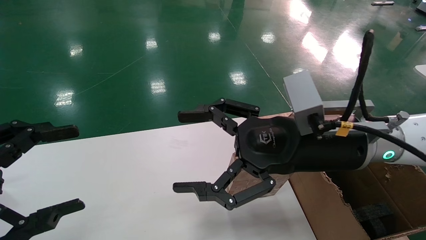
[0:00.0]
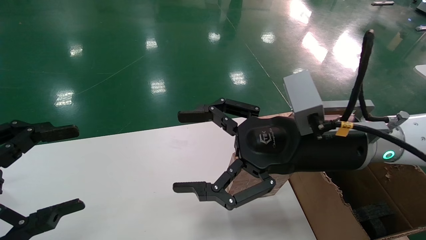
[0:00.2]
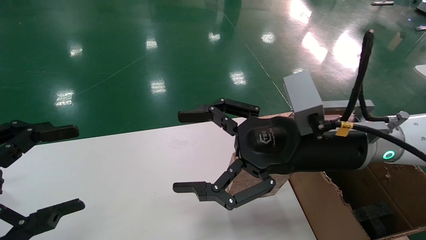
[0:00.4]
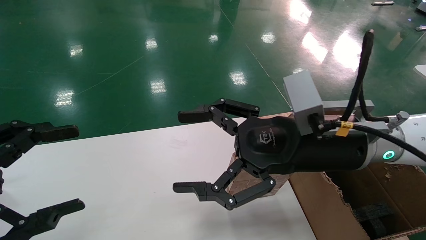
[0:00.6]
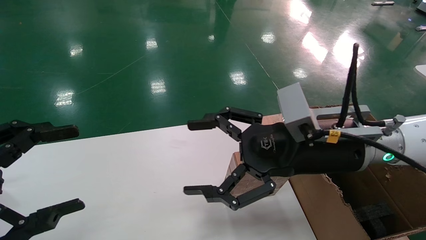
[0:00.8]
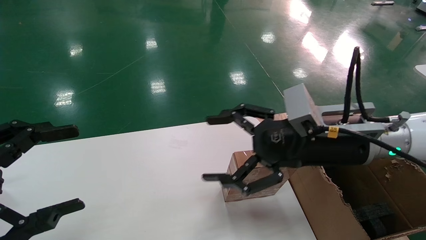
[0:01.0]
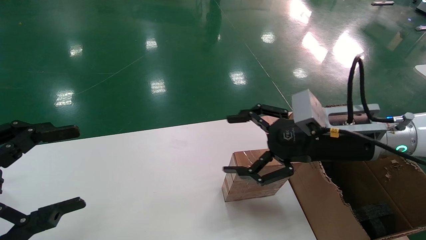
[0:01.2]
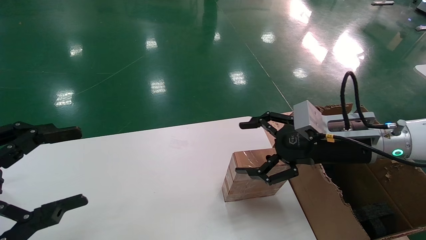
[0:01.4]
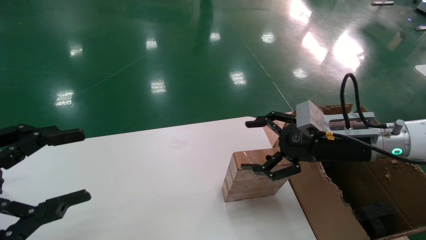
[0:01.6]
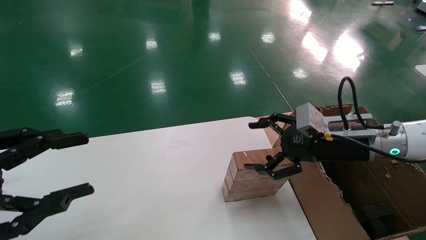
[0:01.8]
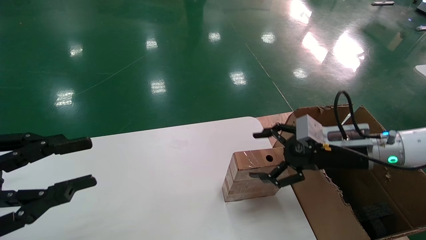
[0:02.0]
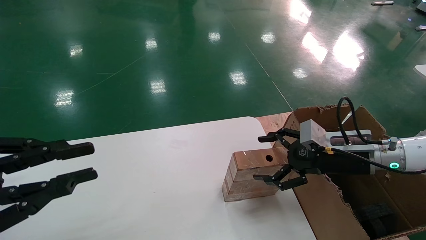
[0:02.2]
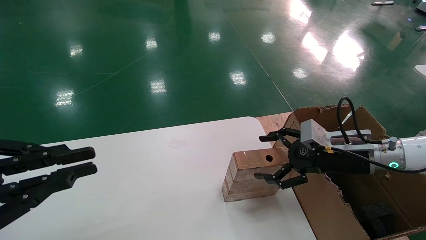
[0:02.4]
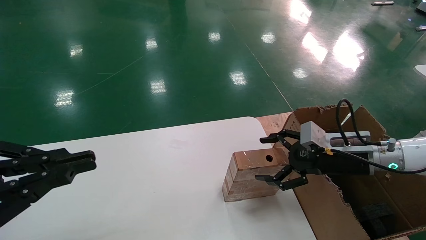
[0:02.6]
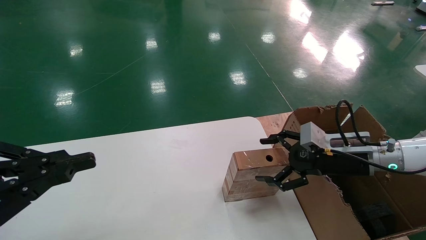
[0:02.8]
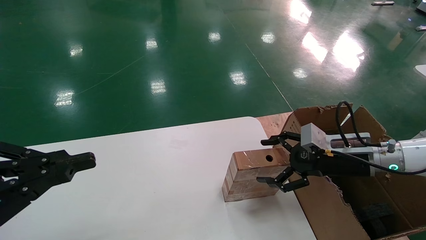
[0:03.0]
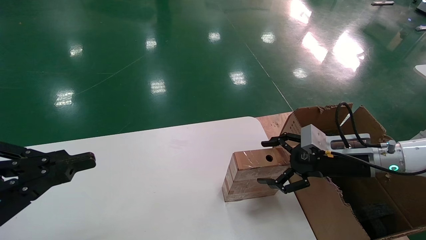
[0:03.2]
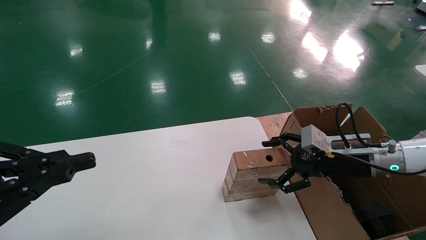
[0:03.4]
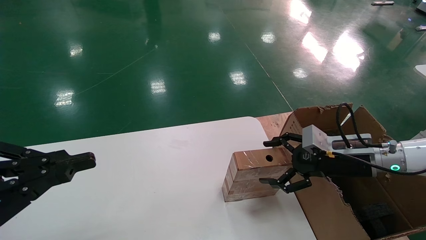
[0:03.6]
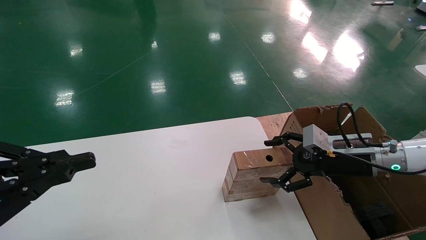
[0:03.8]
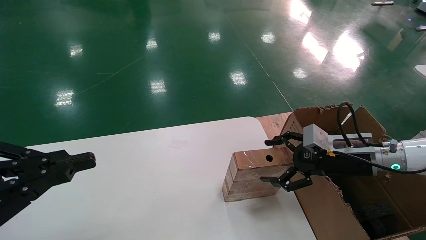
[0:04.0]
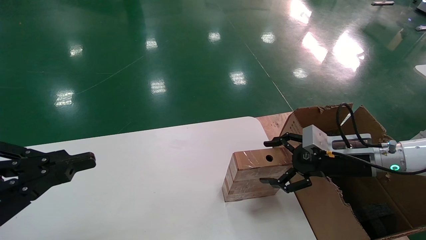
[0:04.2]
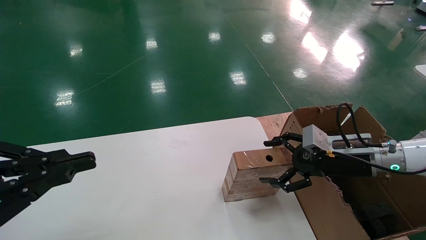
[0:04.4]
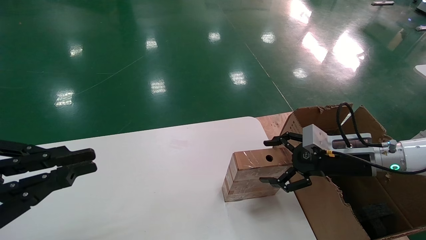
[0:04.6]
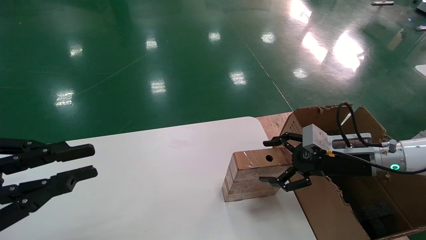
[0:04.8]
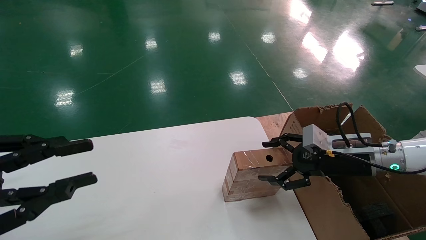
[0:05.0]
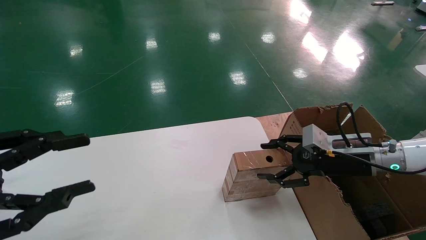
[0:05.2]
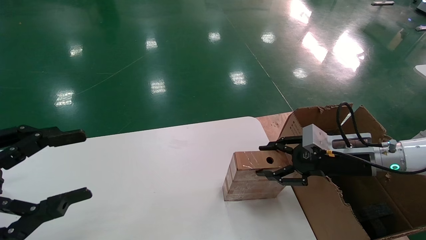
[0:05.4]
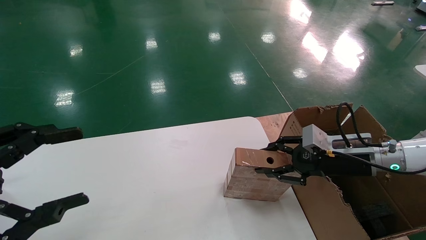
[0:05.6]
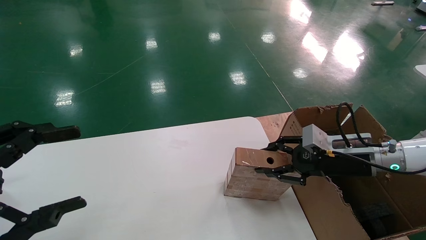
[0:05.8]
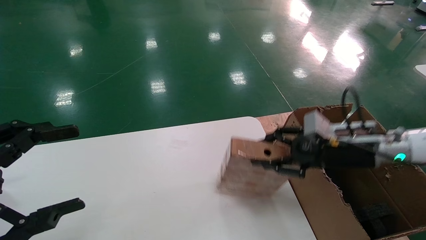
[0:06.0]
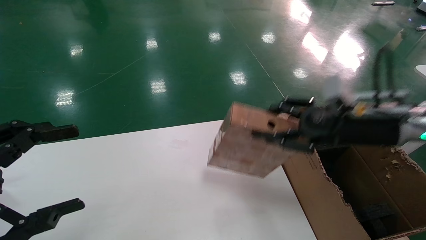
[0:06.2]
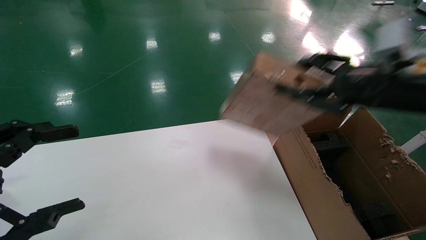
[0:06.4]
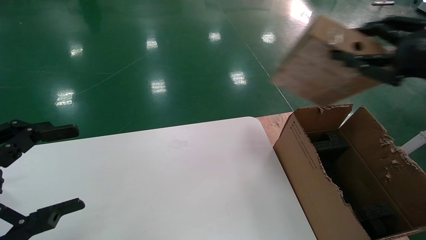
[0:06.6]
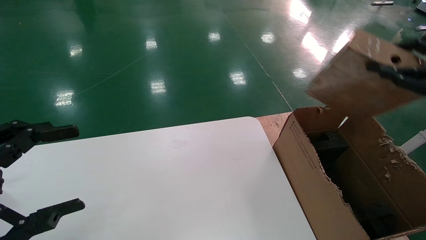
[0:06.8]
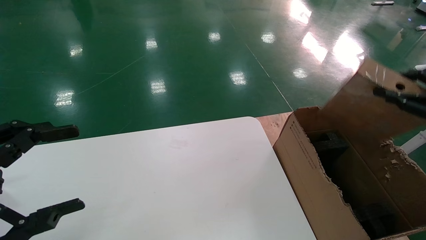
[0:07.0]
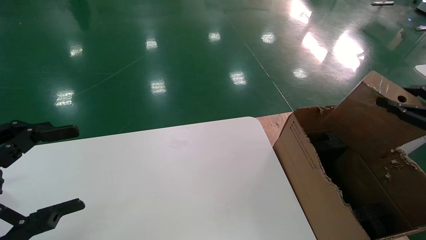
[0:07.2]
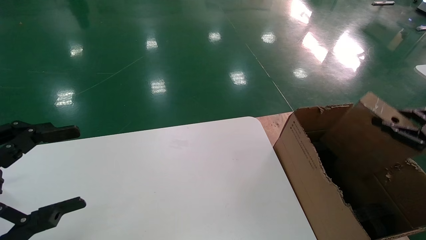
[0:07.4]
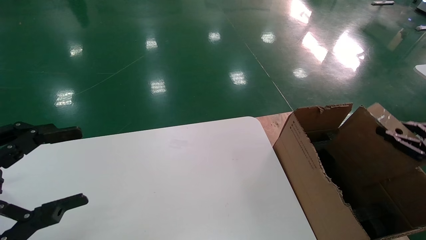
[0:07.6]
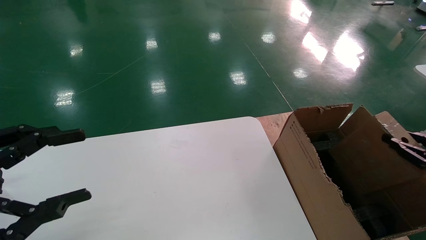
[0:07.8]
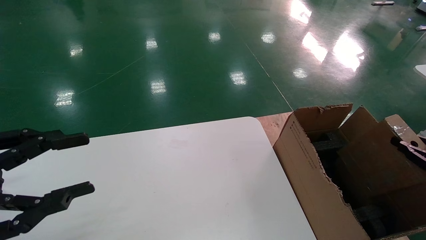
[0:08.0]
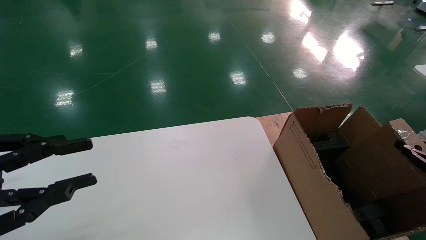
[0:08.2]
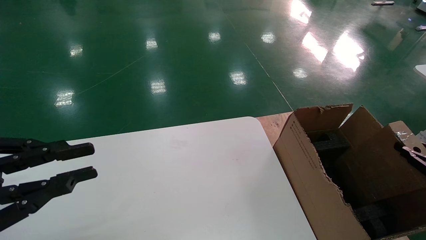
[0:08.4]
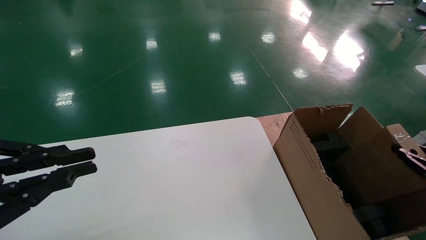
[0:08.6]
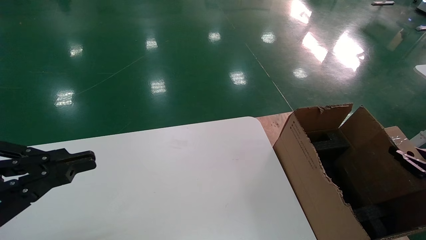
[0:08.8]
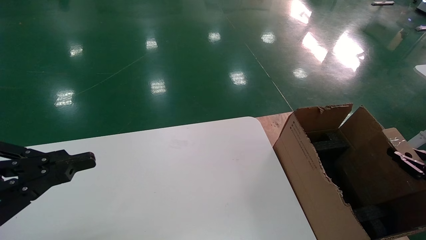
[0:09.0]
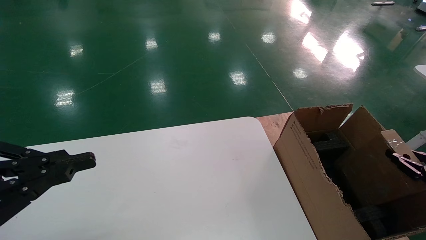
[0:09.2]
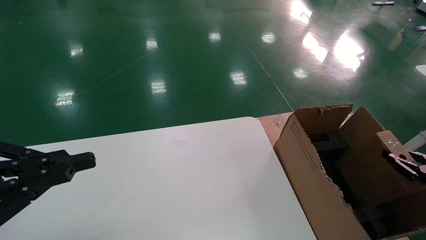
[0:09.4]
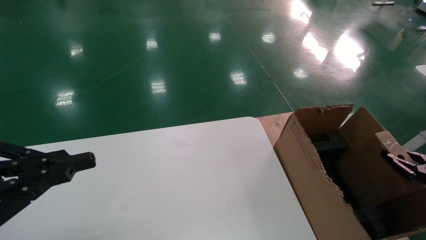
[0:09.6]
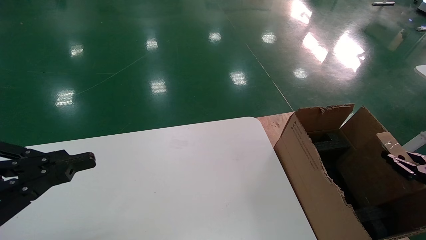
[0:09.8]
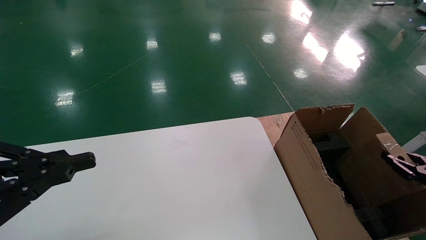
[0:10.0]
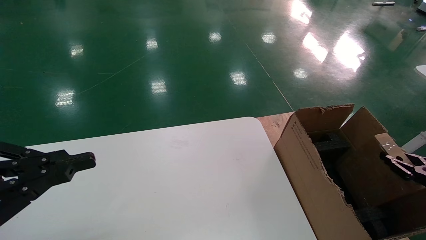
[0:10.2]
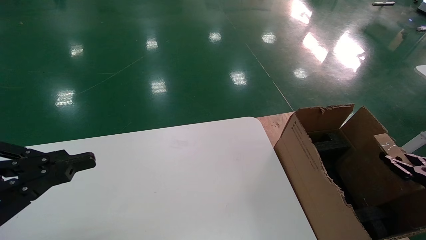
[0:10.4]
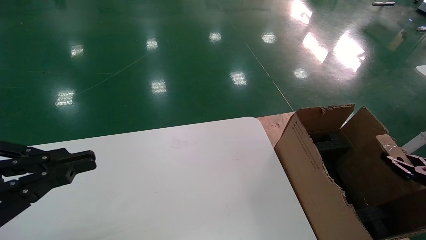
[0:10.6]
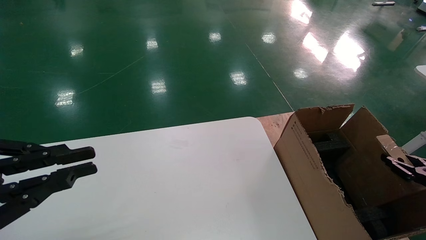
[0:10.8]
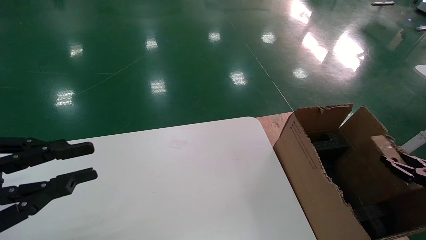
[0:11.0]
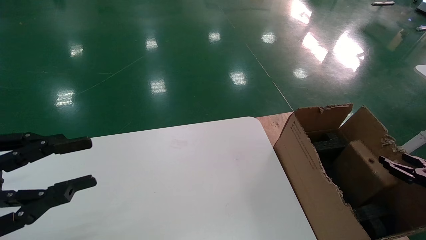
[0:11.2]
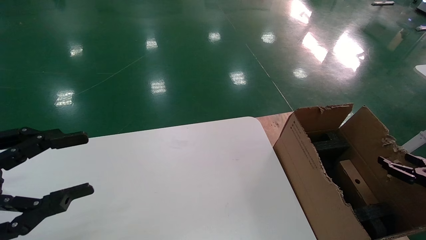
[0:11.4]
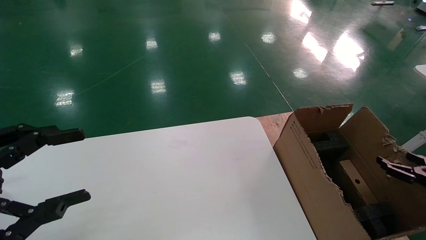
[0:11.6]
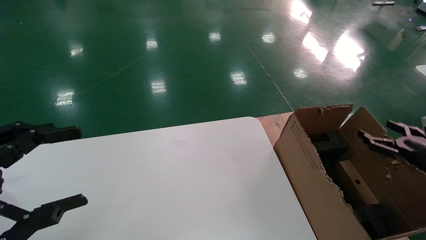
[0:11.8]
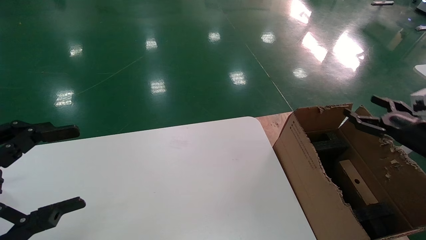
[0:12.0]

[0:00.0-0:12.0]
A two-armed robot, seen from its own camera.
Task of the whole recording: put the box on the table into the big box.
Step, 0:01.2 to 0:05.6: Pick up the mouse and the power cord paper box.
Step, 0:05.8 to 0:11.2: Place the mouse and the power cord paper box into the container.
0:00.0 to 0:01.6: The right gripper heads to the right and forward, covering some 10 cm.
0:01.6 to 0:03.0: The left gripper closes its fingers. Meanwhile the right gripper moves downward, some 5 cm.
0:03.0 to 0:04.4: Both grippers stay put.
0:04.4 to 0:06.0: The right gripper heads upward, covering some 5 cm, and closes. Meanwhile the left gripper opens.
0:06.0 to 0:07.6: The right gripper heads to the right and backward, covering approximately 25 cm.
0:07.6 to 0:09.0: The left gripper closes its fingers. The right gripper heads downward, covering about 10 cm.
0:09.0 to 0:10.4: The grippers stay close to where they were, moving slightly.
0:10.4 to 0:12.0: The right gripper goes about 15 cm upward, forward and to the left, and opens; the left gripper opens up.

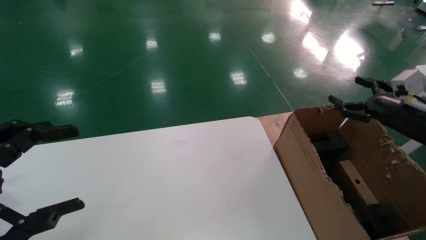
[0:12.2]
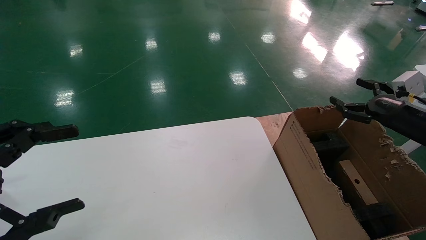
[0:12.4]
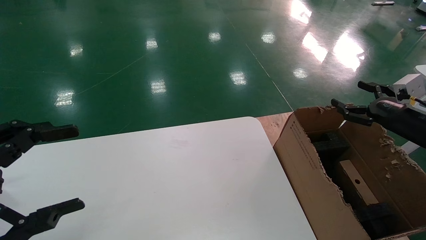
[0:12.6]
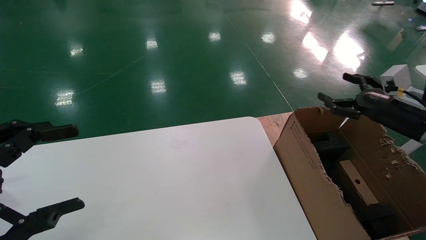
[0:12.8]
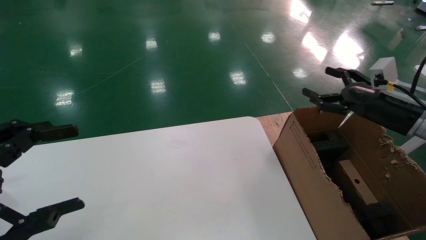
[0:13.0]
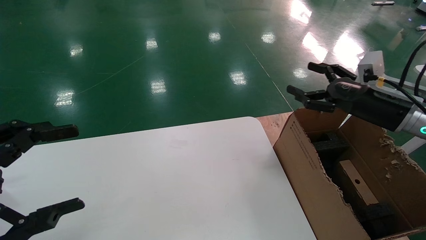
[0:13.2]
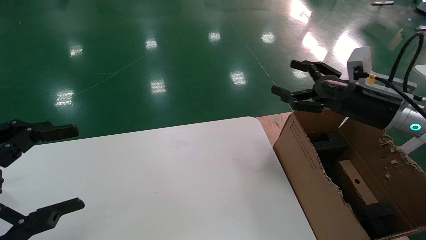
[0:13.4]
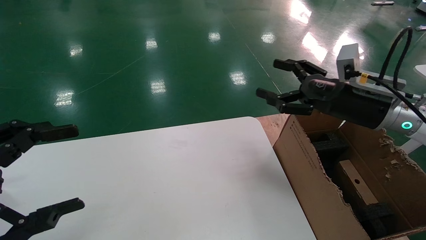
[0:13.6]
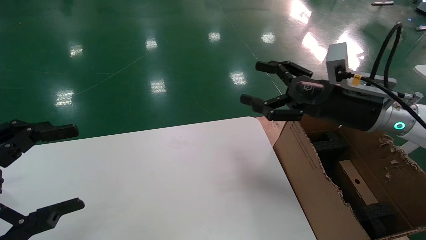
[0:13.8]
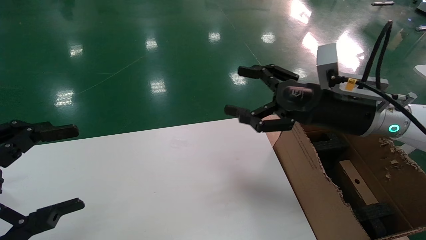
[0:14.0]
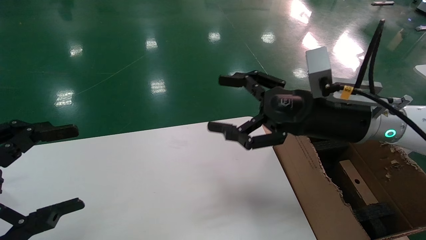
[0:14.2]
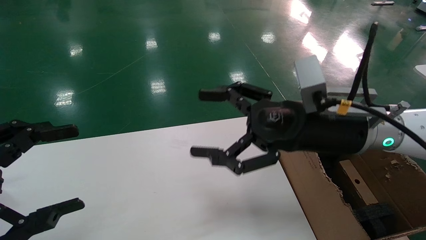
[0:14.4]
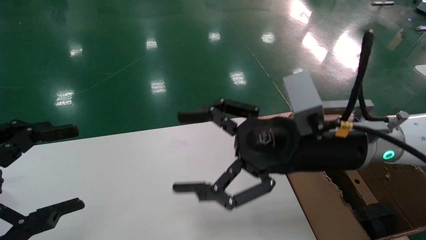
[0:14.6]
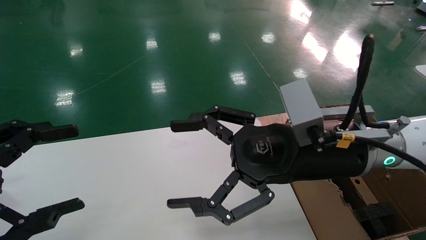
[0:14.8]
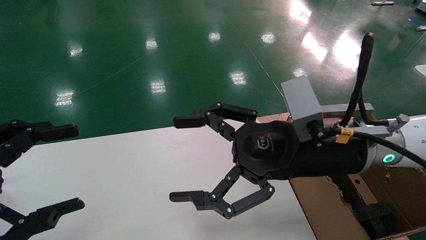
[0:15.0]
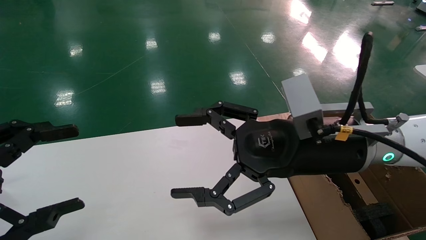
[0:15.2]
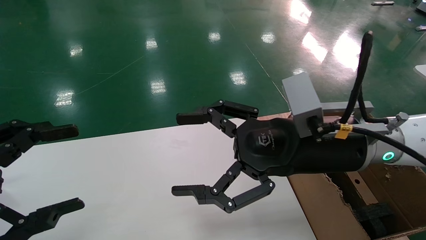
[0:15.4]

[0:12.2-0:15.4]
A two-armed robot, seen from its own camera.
Task of the whole recording: put the box on the table into the big box.
0:12.2 to 0:13.8: The right gripper shifts about 20 cm to the left.
0:13.8 to 0:15.4: The right gripper shifts approximately 15 cm to the left and backward.
